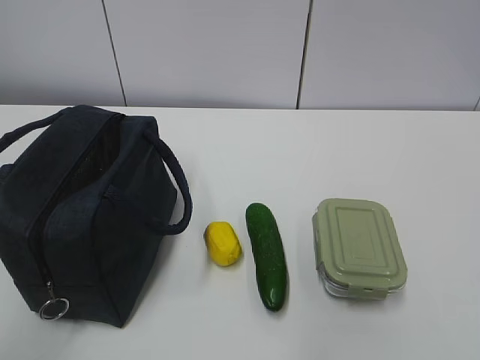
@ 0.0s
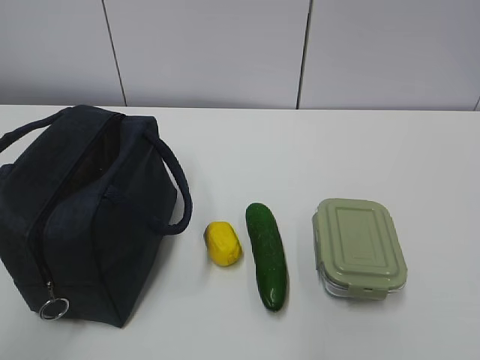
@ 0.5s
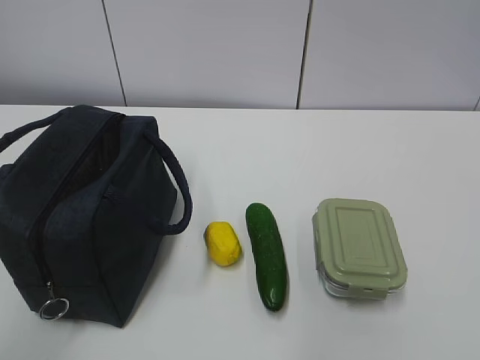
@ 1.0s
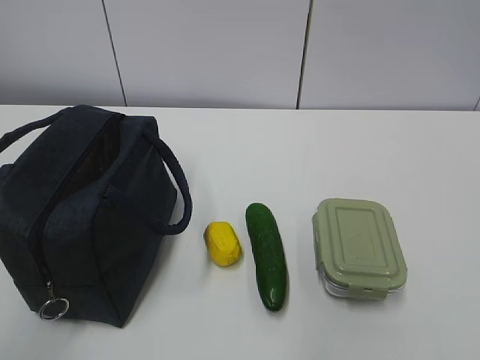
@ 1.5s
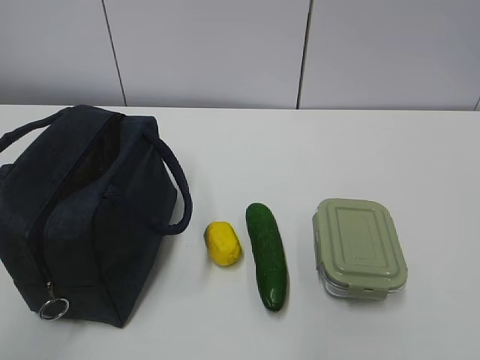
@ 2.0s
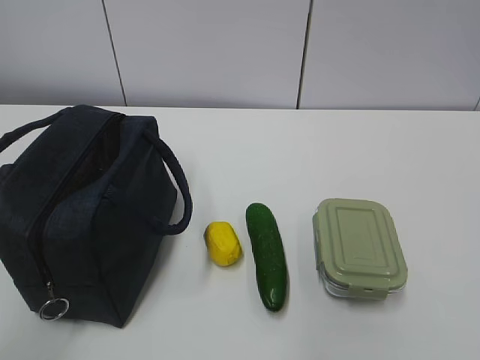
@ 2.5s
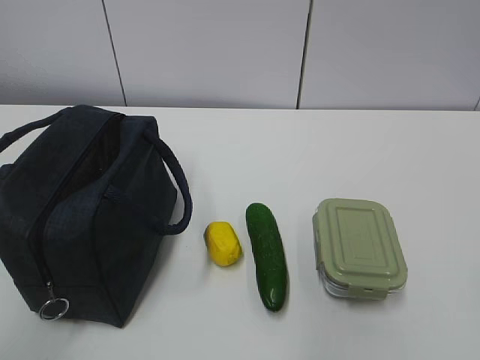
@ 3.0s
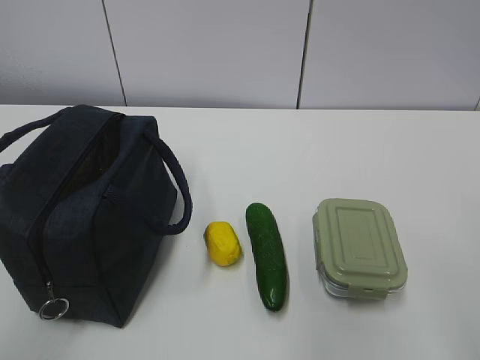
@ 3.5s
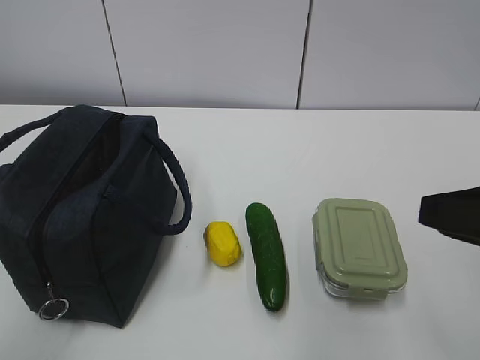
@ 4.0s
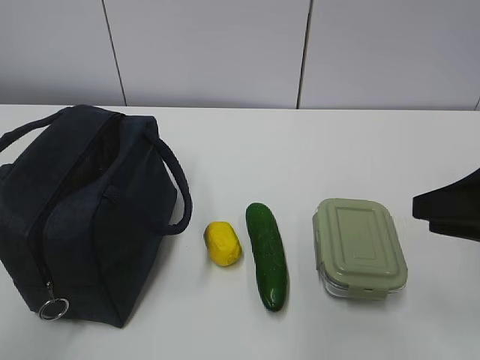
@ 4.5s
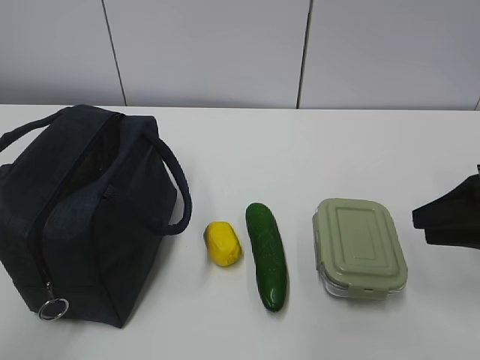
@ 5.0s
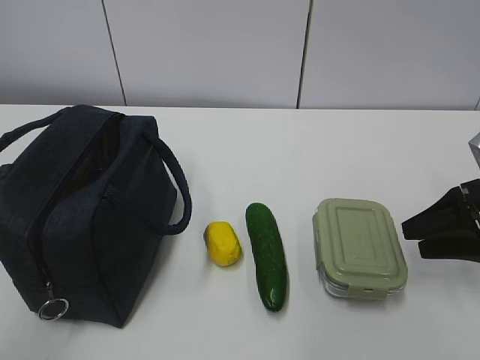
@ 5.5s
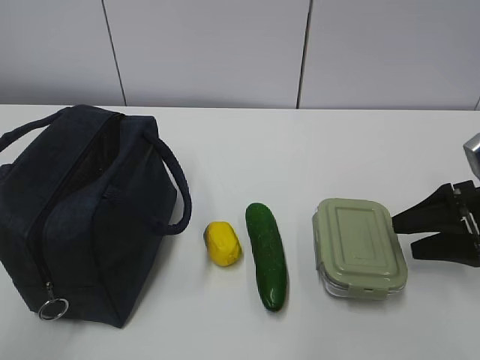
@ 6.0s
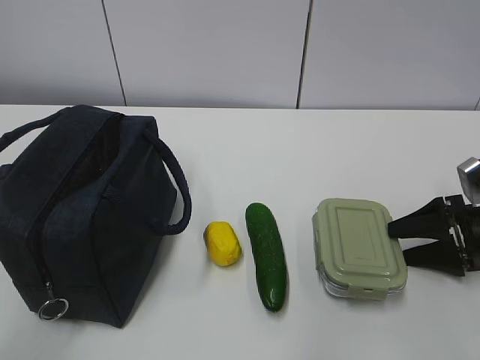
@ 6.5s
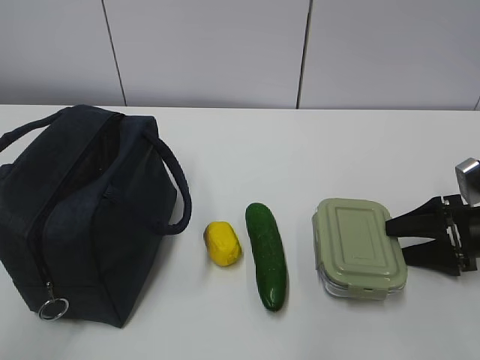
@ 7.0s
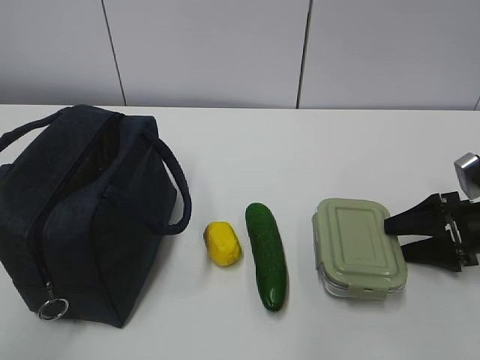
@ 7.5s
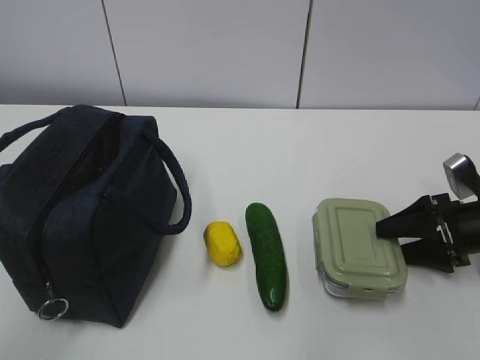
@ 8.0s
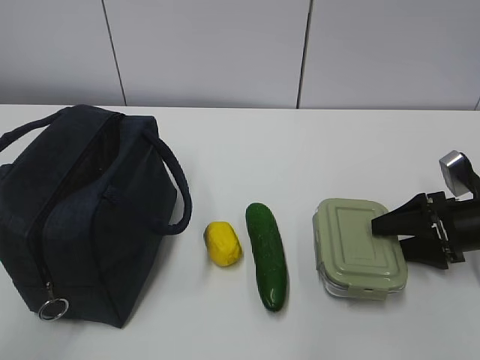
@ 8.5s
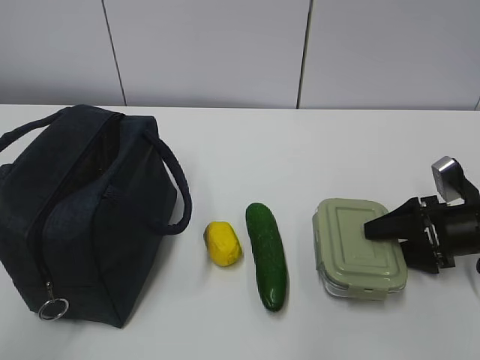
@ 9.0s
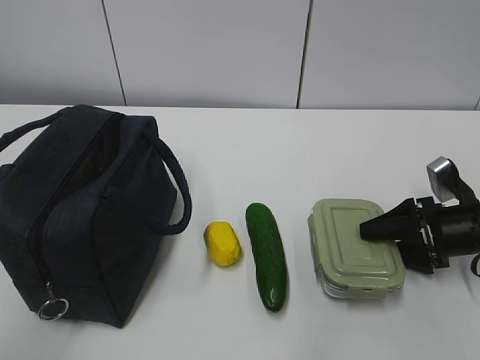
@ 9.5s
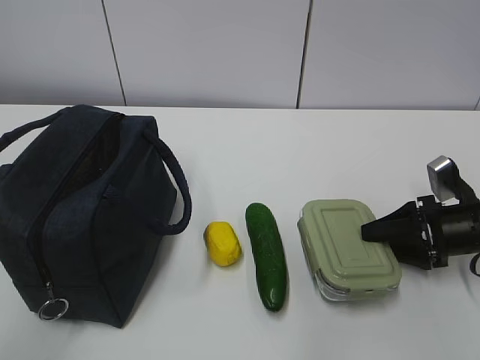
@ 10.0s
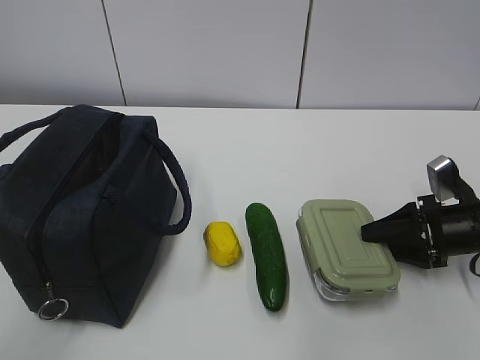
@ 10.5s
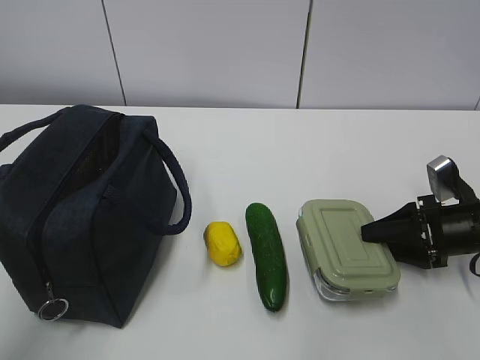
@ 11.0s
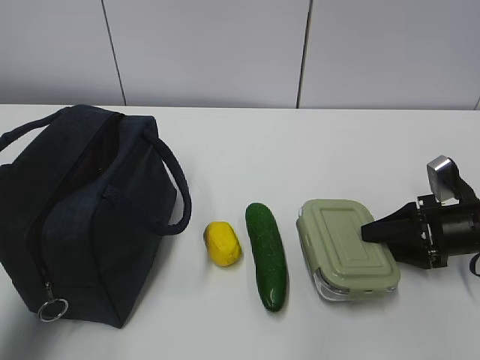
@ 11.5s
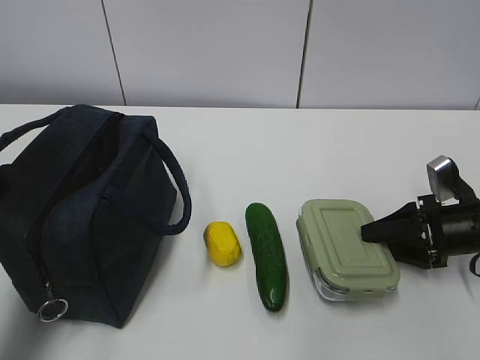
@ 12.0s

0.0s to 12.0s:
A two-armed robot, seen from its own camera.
2.0s to 4.0s: The right gripper travels forward by some 15 cm.
4.0s to 6.0s: The right gripper moves forward, downward and to the right, about 20 cm, and opens.
6.0s to 8.0s: The right gripper goes about 5 cm downward.
8.0s to 10.0s: The grippers make only small movements.
10.0s to 12.0s: The left gripper is displaced forward by roughly 25 cm.

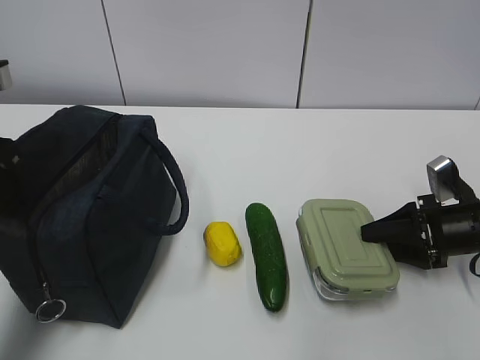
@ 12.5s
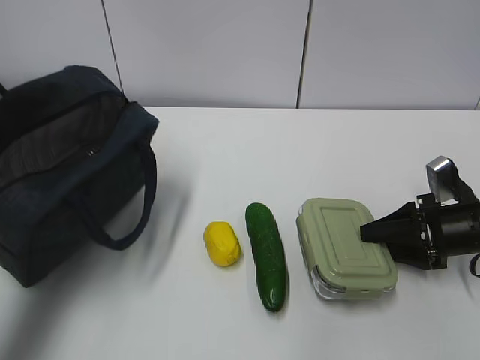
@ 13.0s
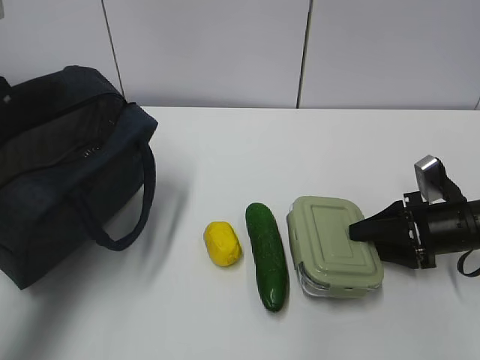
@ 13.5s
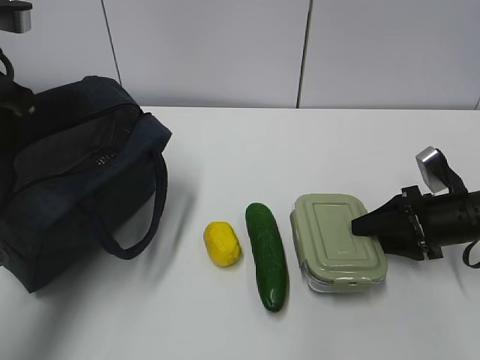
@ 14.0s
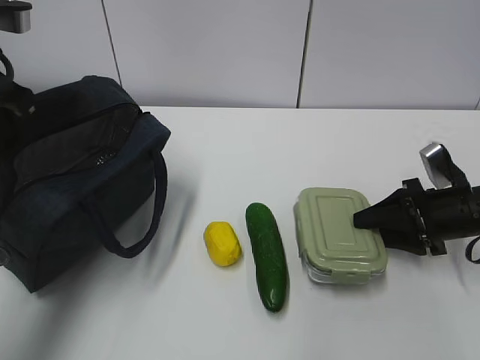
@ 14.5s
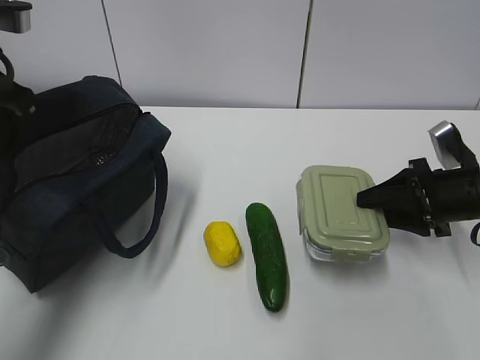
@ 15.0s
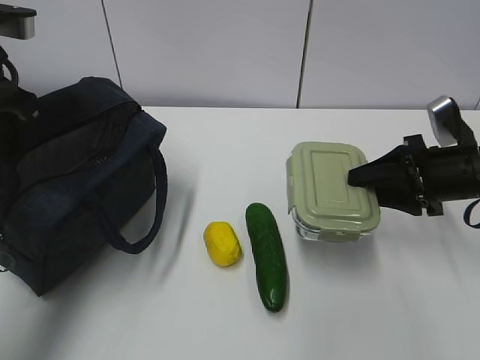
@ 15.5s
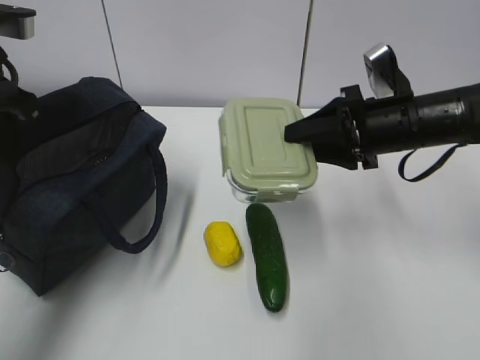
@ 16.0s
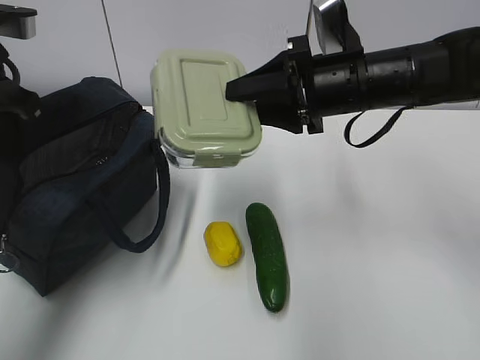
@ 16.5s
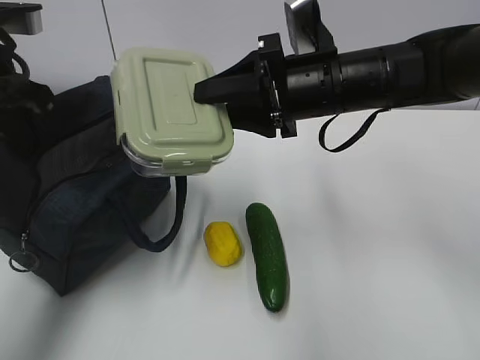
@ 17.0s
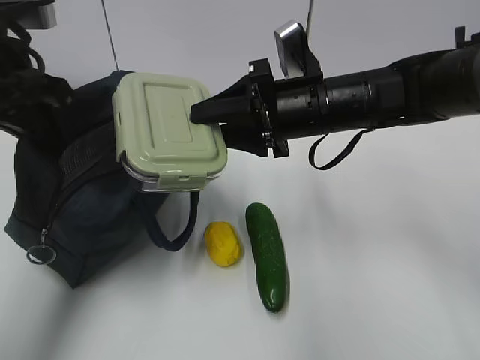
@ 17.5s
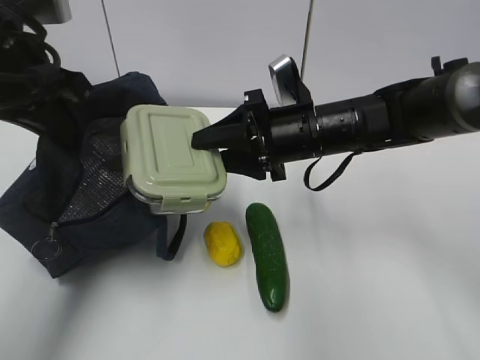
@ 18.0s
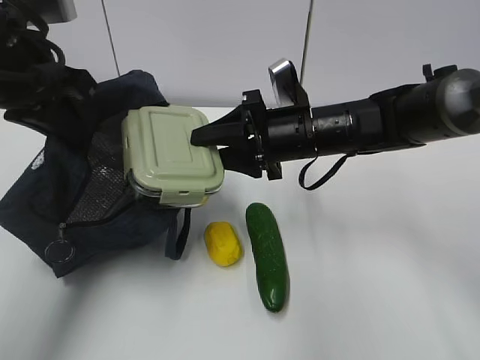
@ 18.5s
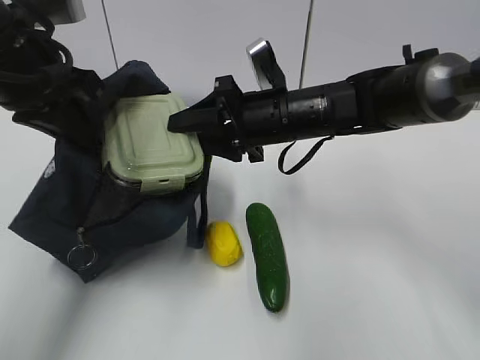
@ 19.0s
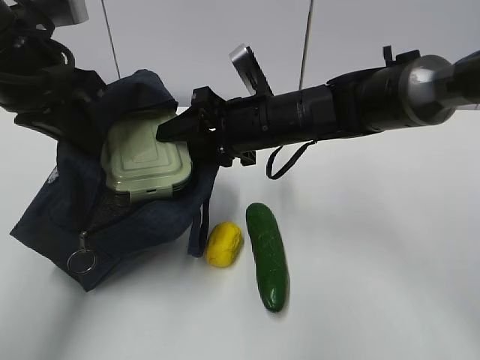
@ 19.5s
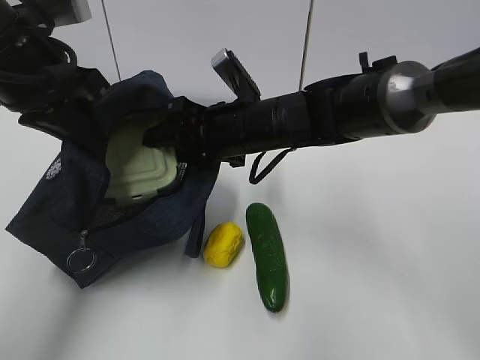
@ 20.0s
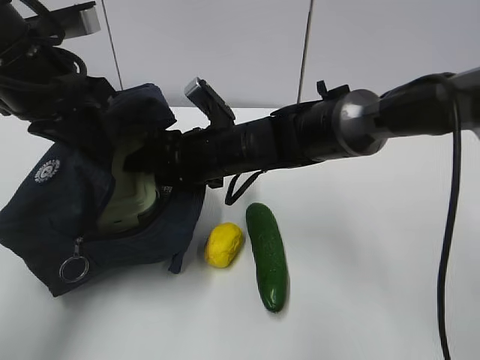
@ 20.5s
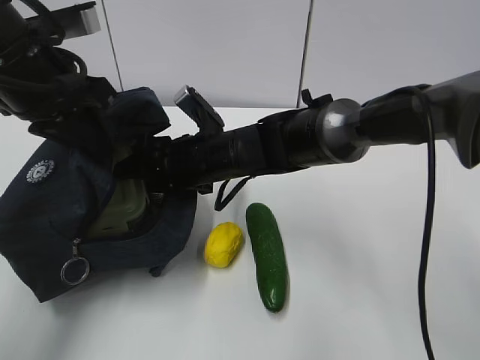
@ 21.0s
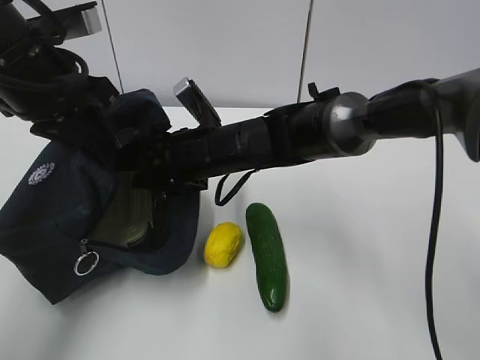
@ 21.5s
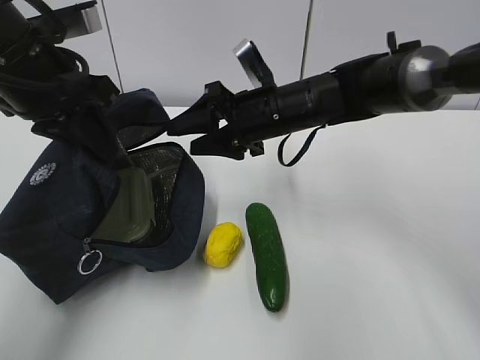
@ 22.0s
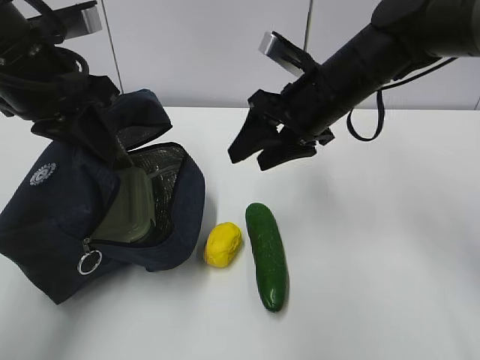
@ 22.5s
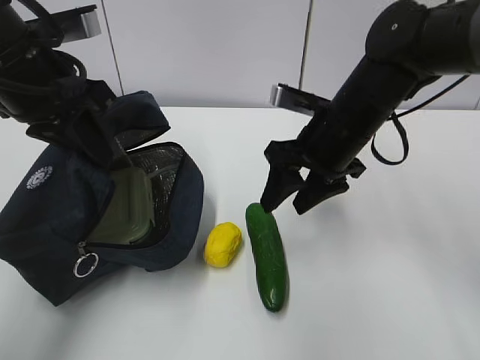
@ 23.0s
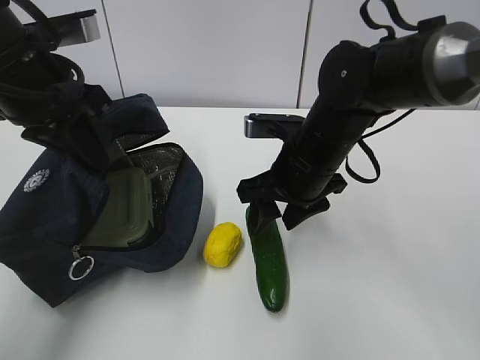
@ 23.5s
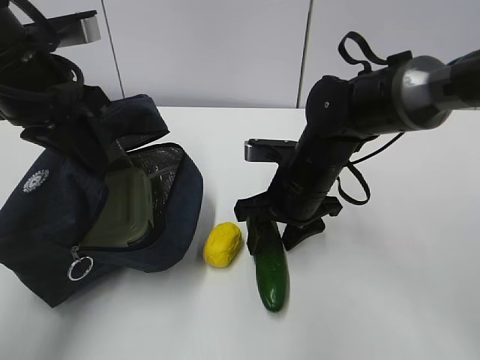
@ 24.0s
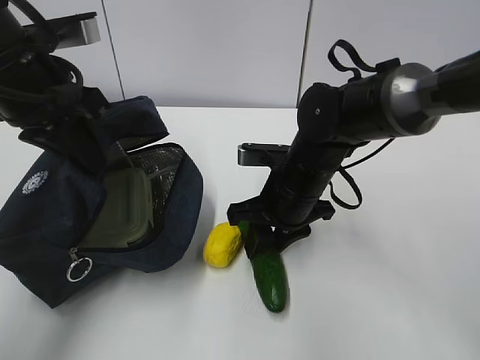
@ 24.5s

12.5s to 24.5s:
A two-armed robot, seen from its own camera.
Step, 12.5s to 15.0s: Grab the lunch bag with your left hand.
Step, 15.5s to 17.5s: Place it into the bag with your right hand.
Step, 18.0s to 20.0s: Grab the cucumber with your right hand.
Step, 20.5s to 23.5s: Place it into the bag with your right hand.
12.5s to 14.5s: The left gripper shifts by approximately 5 cm, and closes its fingers.
14.5s to 16.5s: The right gripper moves to the left and upward, roughly 20 cm.
16.5s to 18.5s: The right gripper heads downward, covering approximately 5 cm.
18.5s to 20.5s: The right gripper heads to the left, covering some 10 cm.
20.5s to 22.5s: The right gripper is displaced to the right and upward by some 15 cm.
22.5s to 24.5s: The right gripper moves downward, approximately 10 cm.

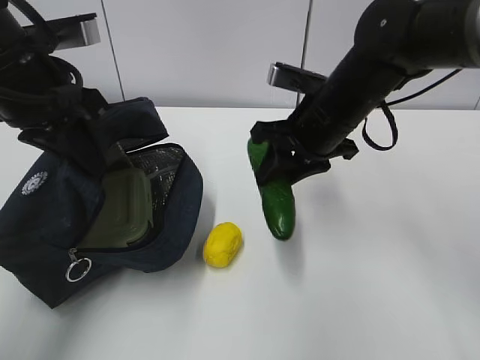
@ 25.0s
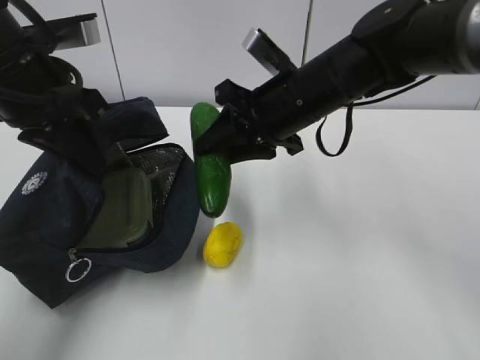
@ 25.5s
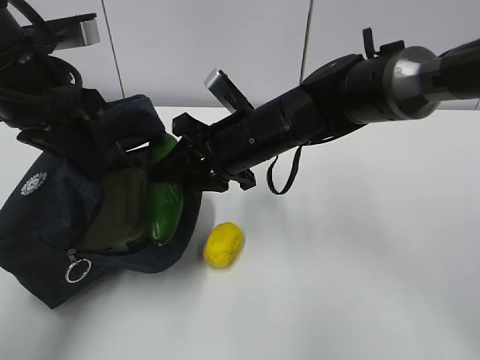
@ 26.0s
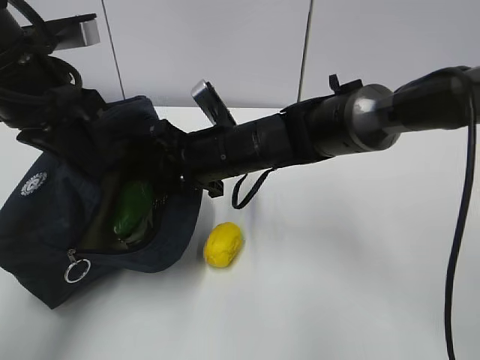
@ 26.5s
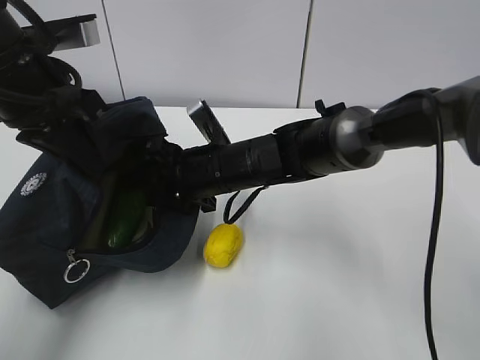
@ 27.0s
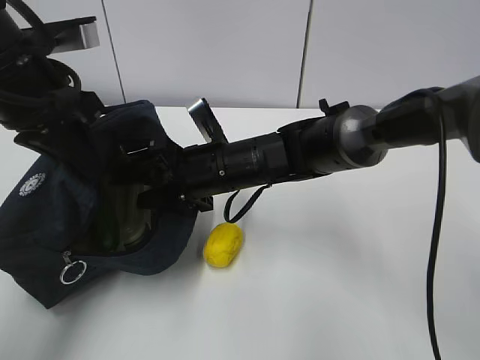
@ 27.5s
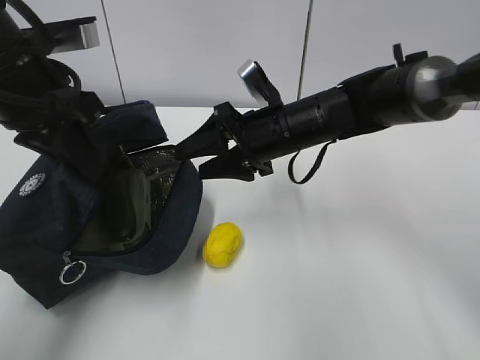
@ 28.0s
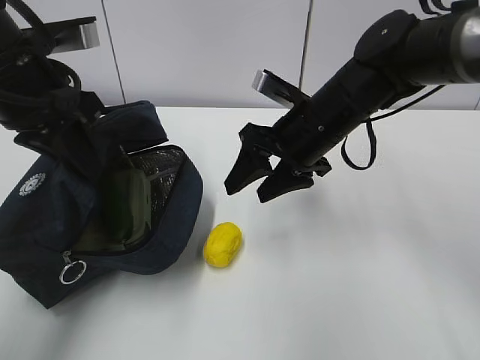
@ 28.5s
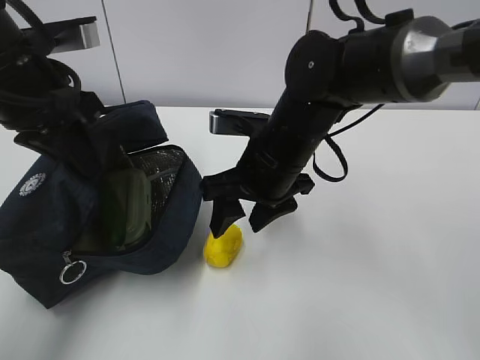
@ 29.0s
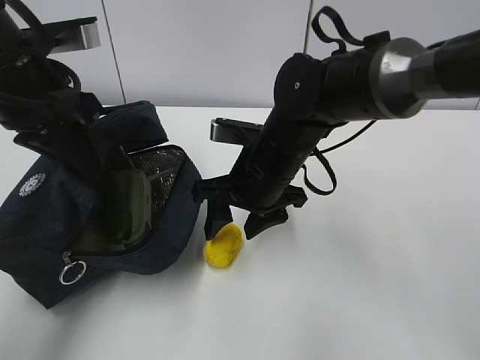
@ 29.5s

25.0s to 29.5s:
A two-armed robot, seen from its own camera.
Step, 27.5s to 28.0s: Grab the lunch bag with your right hand.
25.0s to 27.0s: The right gripper heads to the left and downward, covering some 15 cm.
